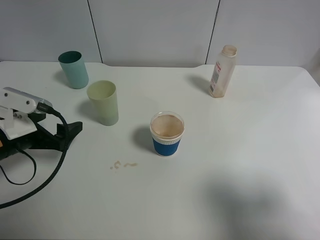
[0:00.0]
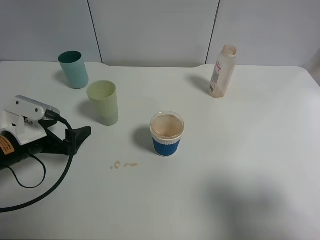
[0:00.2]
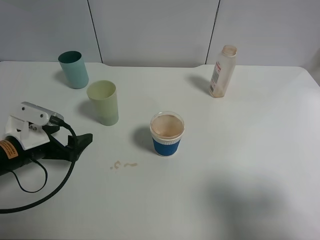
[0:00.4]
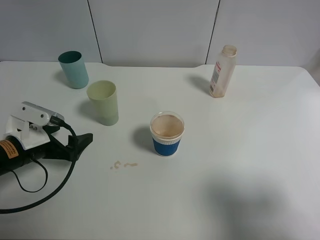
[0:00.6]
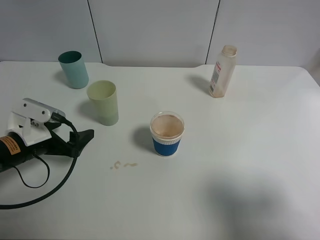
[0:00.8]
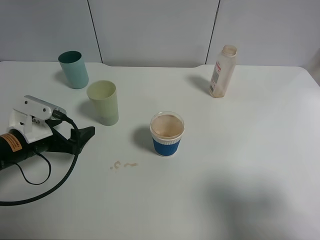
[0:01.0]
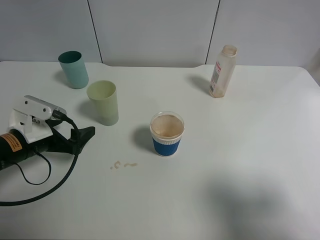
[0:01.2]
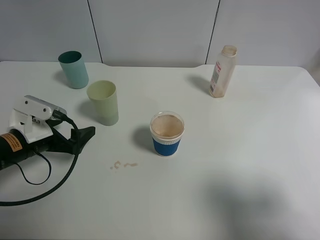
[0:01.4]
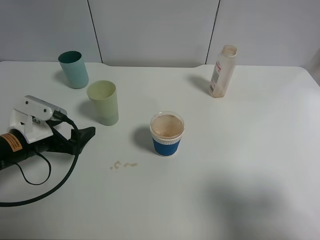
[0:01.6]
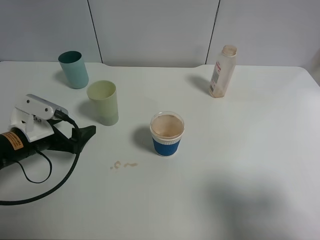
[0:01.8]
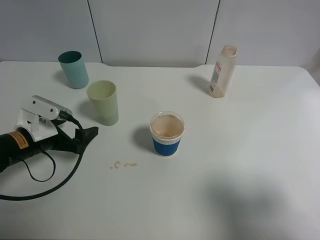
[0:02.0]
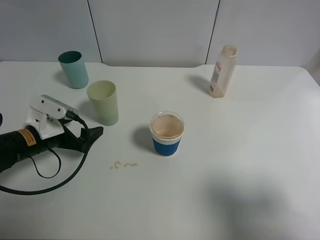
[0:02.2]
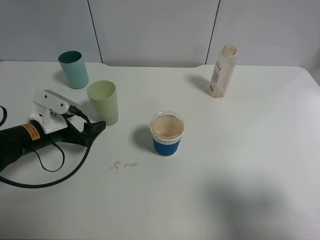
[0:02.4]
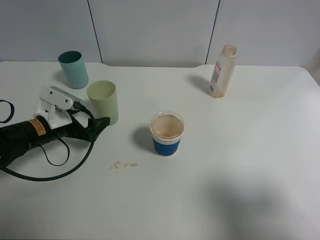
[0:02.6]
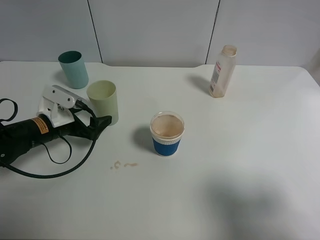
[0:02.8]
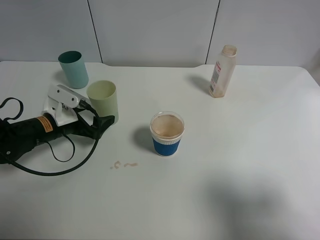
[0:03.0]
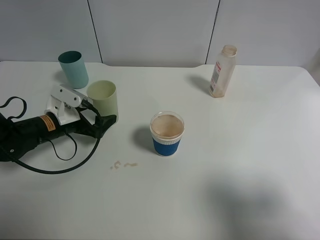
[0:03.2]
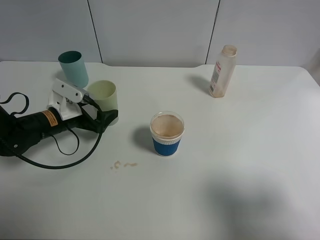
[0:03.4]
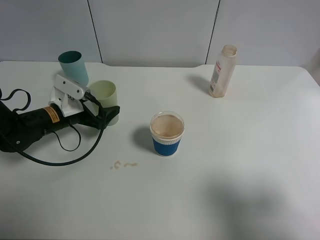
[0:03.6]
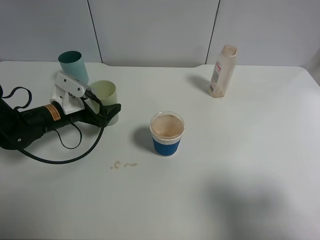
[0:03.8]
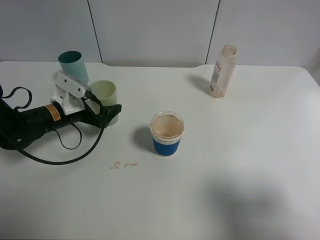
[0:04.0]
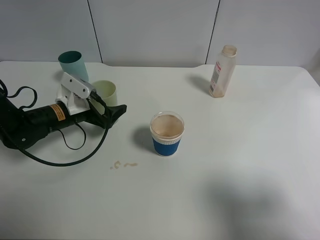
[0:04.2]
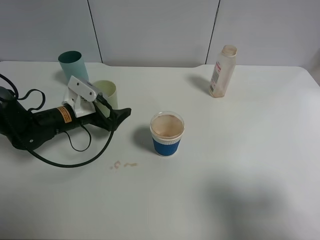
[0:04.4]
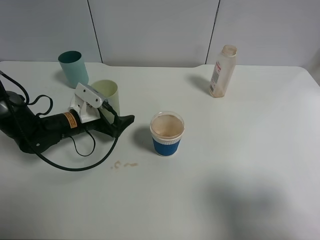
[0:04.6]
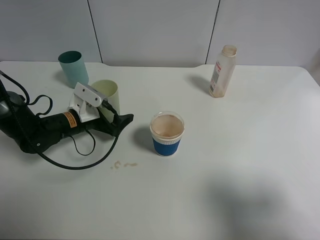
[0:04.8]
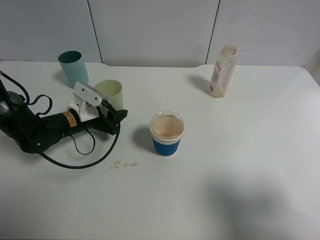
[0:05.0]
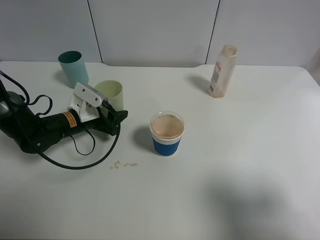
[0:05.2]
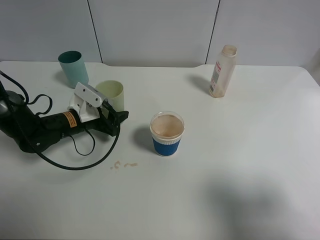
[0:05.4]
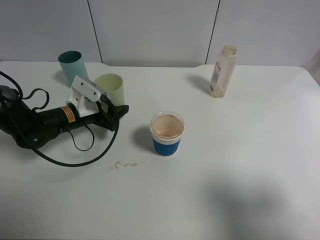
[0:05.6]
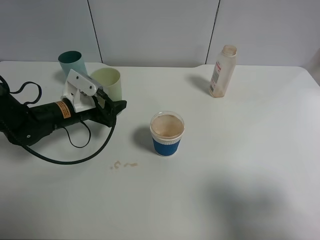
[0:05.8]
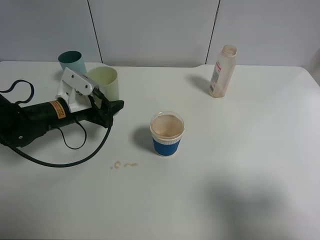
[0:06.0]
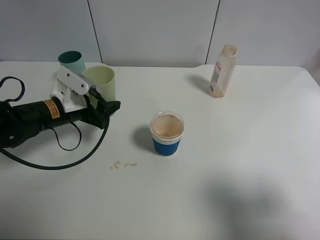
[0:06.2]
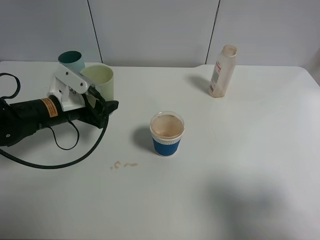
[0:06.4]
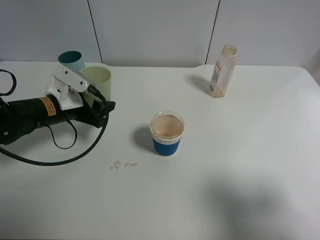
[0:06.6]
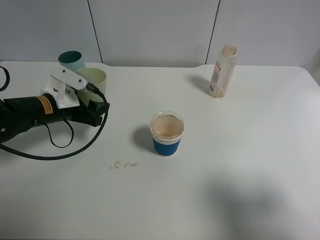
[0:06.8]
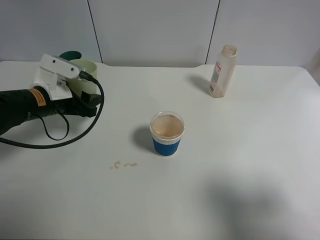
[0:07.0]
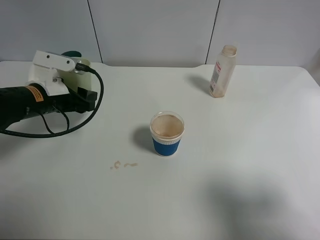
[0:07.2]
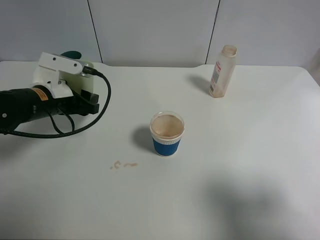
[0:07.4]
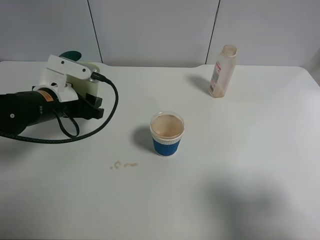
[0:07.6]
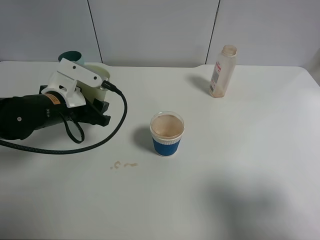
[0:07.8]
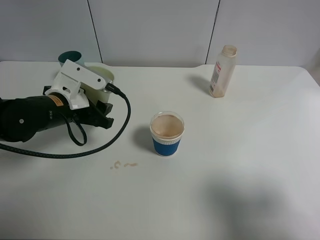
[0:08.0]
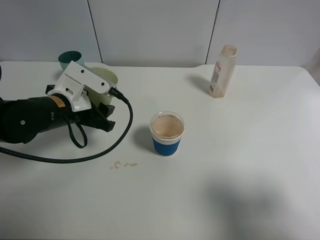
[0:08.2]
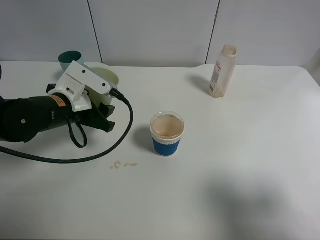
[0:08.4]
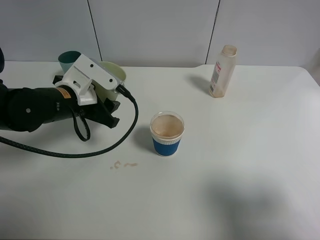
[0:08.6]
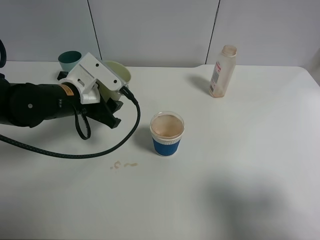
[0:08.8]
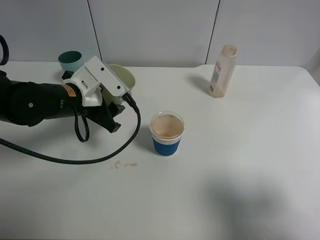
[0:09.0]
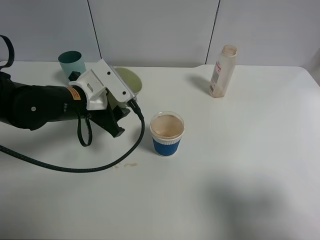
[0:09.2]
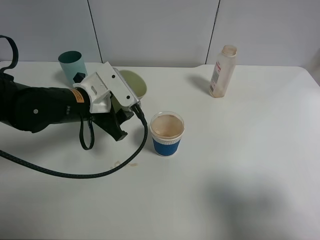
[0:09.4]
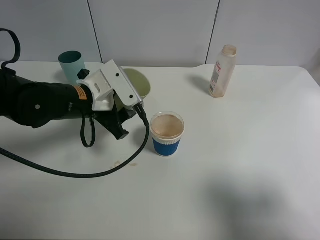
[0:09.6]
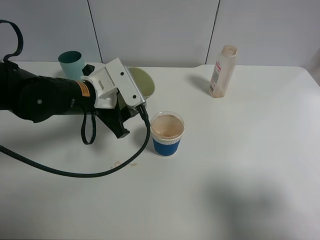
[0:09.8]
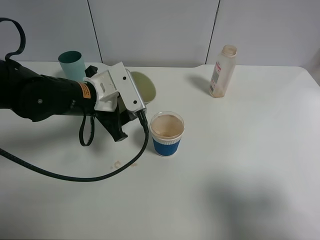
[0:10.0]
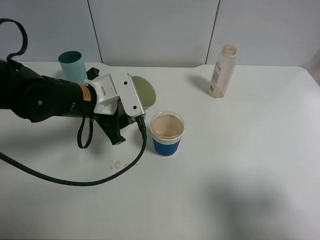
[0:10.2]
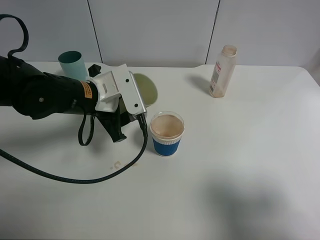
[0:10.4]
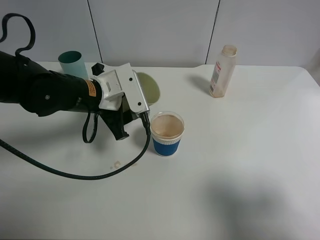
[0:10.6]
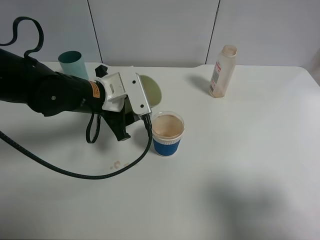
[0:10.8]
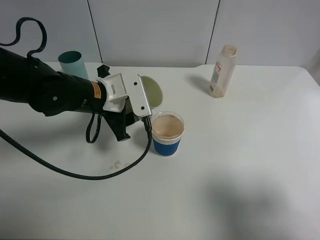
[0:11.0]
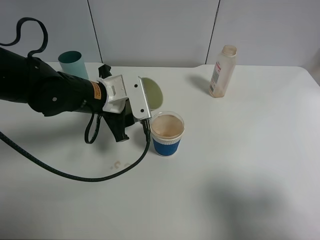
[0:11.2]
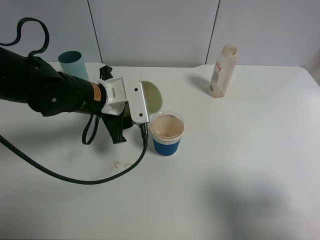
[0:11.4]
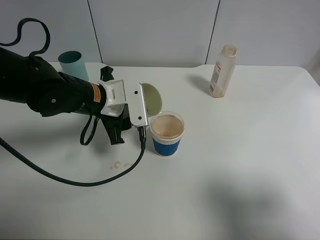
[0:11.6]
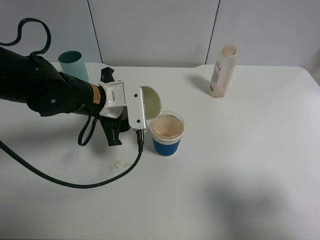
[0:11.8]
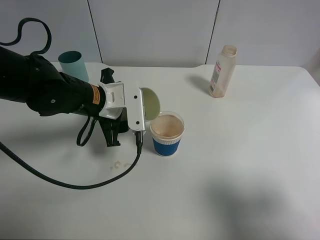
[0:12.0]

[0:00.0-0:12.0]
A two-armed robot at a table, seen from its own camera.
Task of the whole recording: use a clamp to hold the bottle of the drink, pour the beverage into a random cup, then clamp the cup containing the drink and pour the drink into another random cup.
Step, 0:00.0 to 0:05.4: Pick up the green plastic cup bottle with left gripper.
0:00.0 to 0:01.6: There are only small adjustments of the grippers.
0:01.6 to 0:03.0: The left gripper is displaced forward by roughly 5 cm.
0:03.0 to 0:04.4: There are only small adjustments of the grippers.
0:04.4 to 0:06.0: The left gripper closes.
0:06.0 to 0:07.6: The left gripper shifts by roughly 5 cm.
0:10.4 to 0:12.0: There are only small adjustments of the grippers.

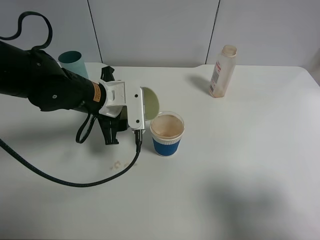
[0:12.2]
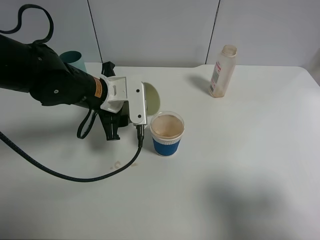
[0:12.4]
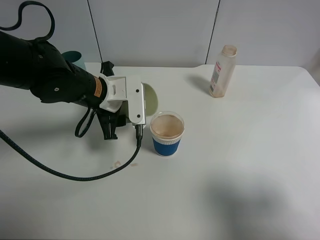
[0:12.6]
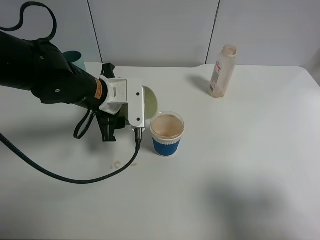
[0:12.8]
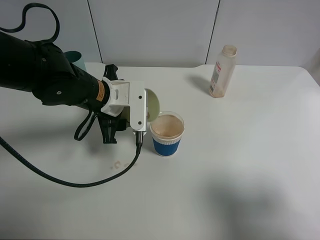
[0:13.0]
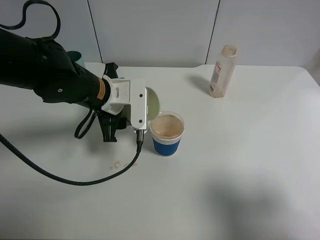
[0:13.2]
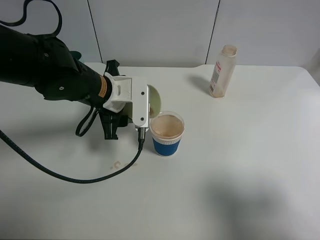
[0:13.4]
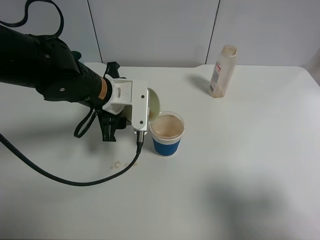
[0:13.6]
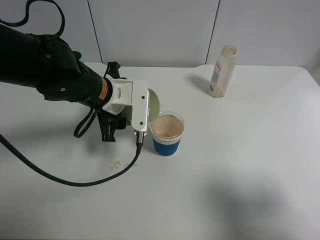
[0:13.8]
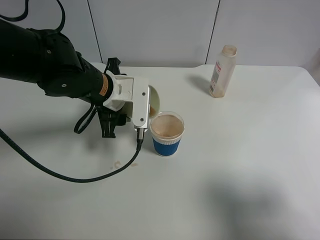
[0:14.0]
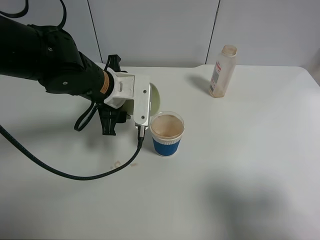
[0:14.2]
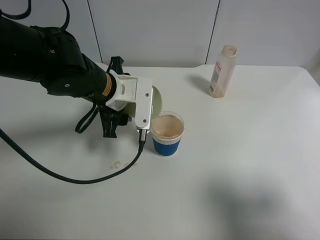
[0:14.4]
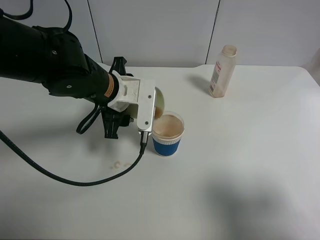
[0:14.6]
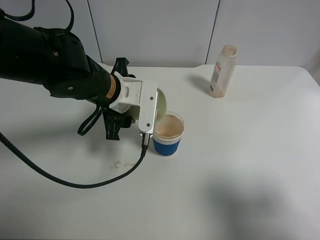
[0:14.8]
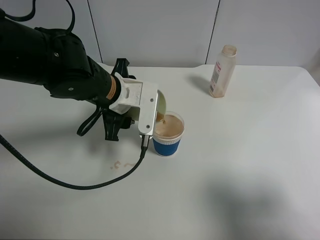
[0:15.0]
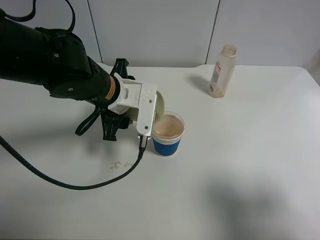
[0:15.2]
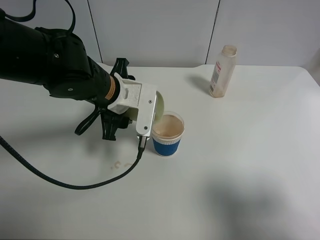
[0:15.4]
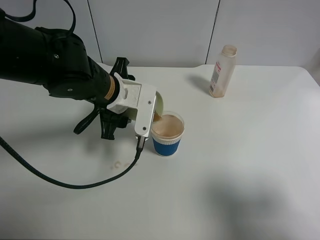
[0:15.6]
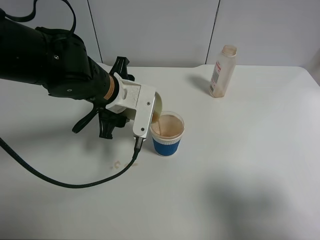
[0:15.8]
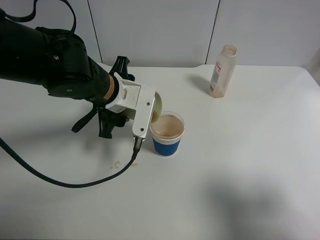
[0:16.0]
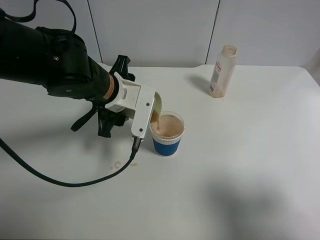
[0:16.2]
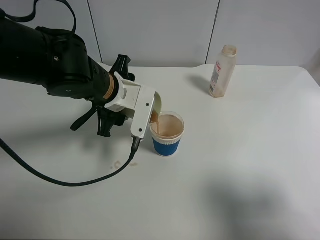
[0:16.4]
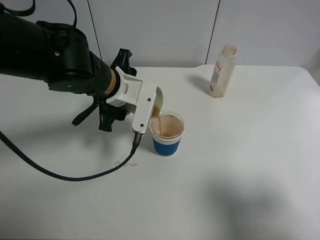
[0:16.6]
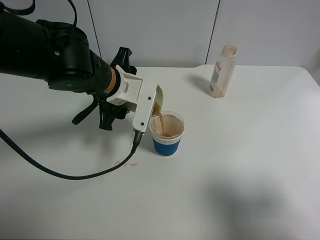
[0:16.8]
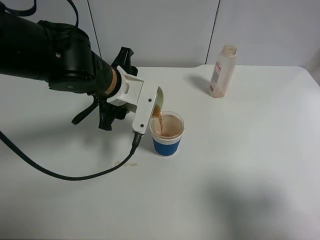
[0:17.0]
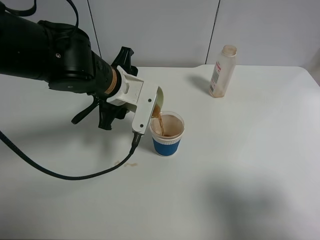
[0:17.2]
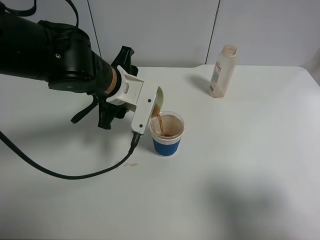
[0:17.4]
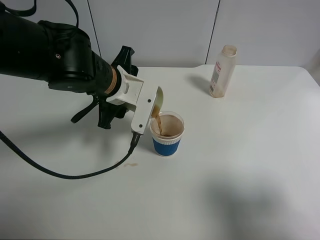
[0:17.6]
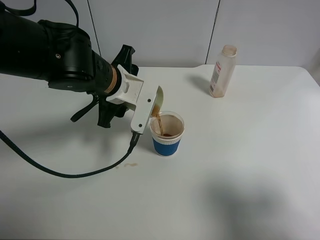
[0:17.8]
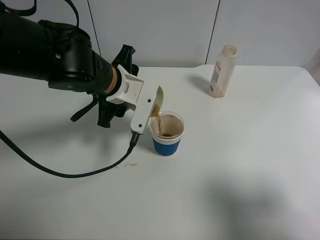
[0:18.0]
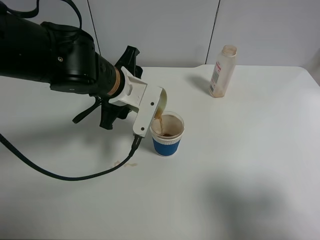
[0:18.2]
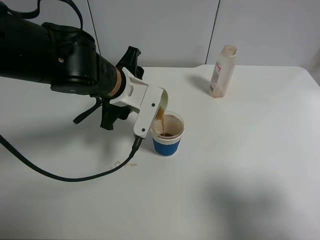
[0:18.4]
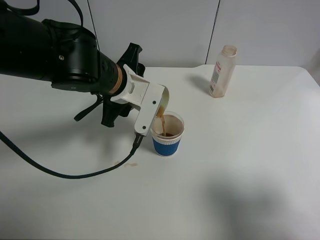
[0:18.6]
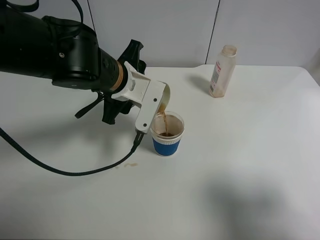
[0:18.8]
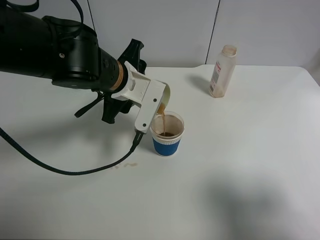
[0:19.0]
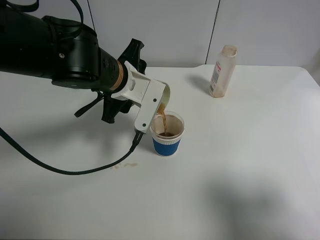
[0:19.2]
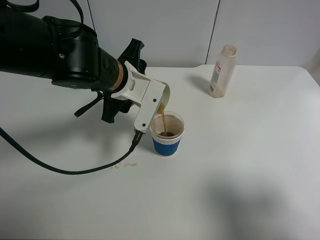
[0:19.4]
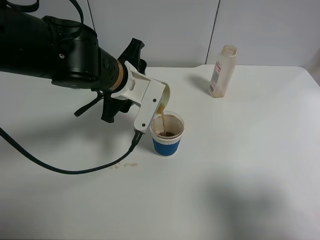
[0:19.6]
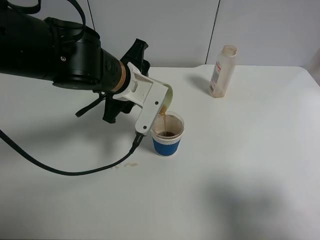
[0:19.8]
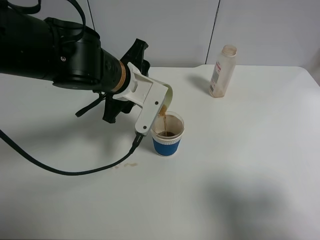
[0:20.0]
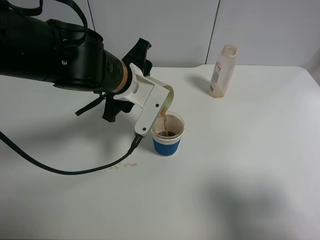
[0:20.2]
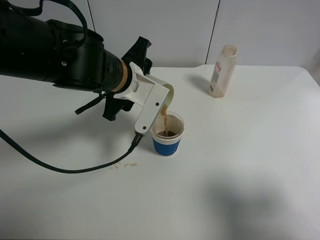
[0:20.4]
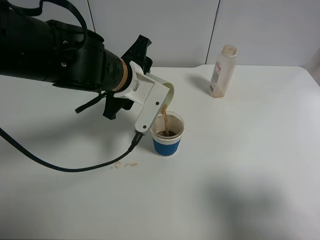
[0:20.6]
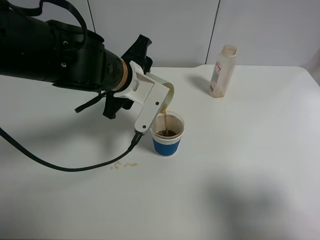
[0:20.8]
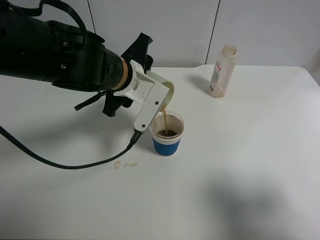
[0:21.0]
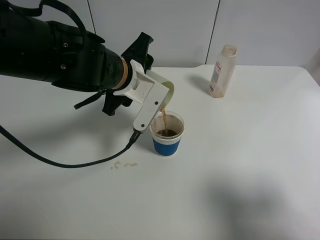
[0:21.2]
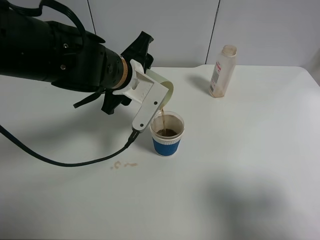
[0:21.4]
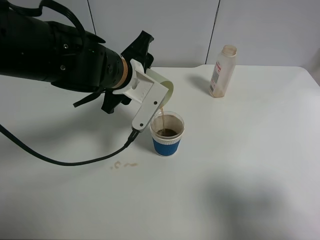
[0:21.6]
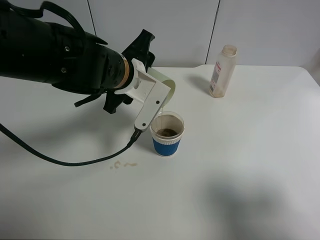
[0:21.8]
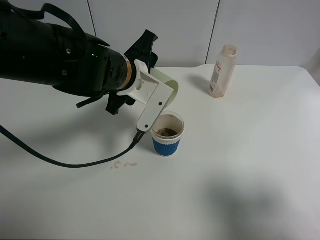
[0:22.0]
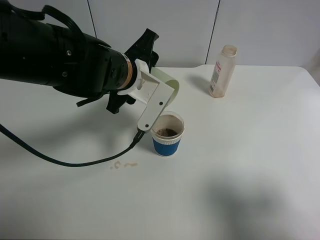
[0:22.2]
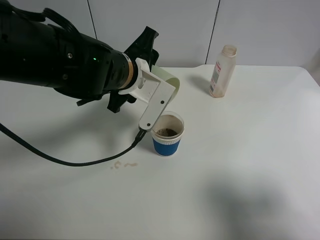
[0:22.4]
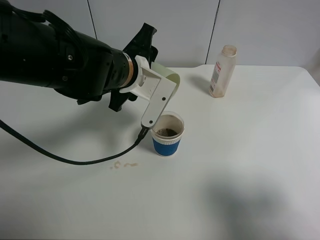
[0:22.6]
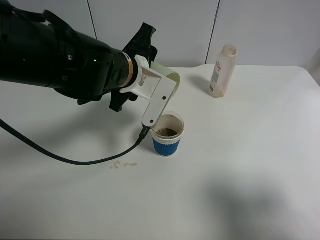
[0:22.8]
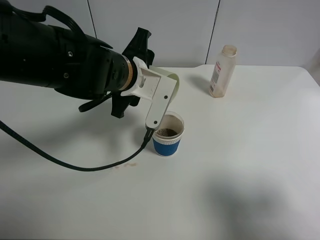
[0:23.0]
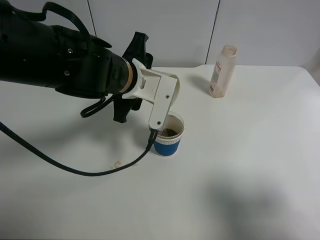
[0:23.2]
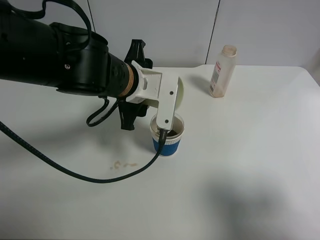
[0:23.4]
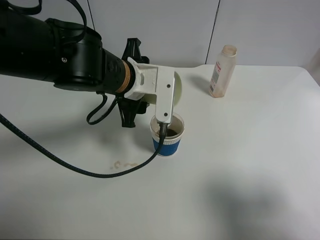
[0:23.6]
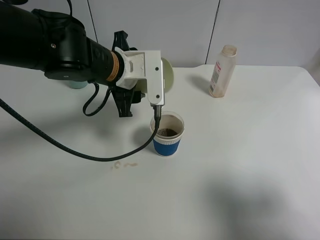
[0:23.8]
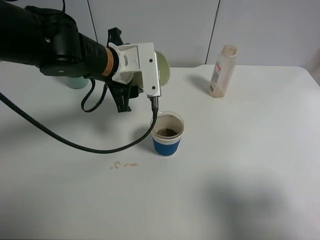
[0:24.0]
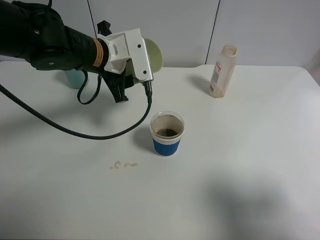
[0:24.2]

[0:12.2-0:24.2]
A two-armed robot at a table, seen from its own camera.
Task of the whole recording: use a clamp to hold the bottle of the drink, pour the beverage into a random cup, then clamp the cup containing the drink and pour the drink into another random cup.
Step, 0:12.2 to 0:23.0: Pour the drink into the paper cup with left gripper.
0:12.2 to 0:15.2: There are only small adjustments of the grippers.
0:15.2 to 0:18.2: The grippers stay close to where they were, moving slightly.
0:18.2 to 0:22.6: There are only small adjustments of the grippers.
0:22.6 to 0:24.2: The left gripper travels to the left and forward by some 10 cm.
